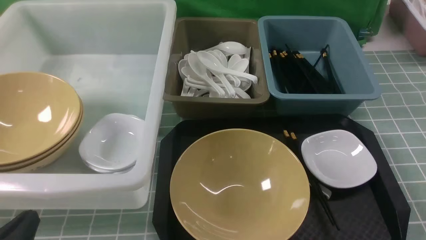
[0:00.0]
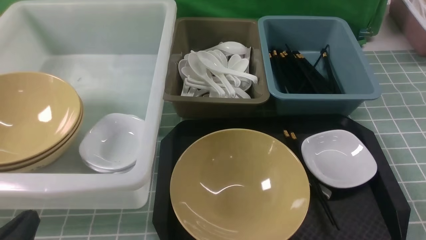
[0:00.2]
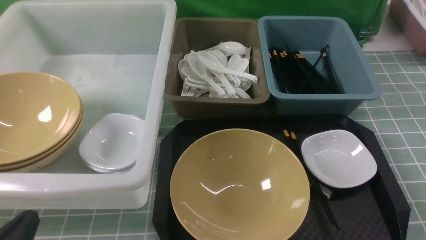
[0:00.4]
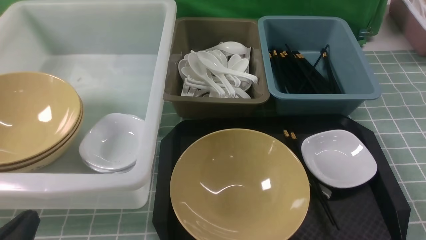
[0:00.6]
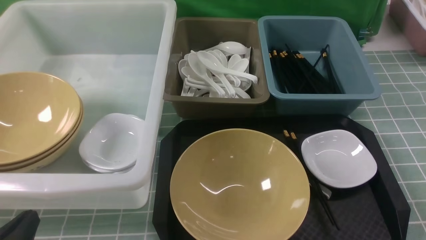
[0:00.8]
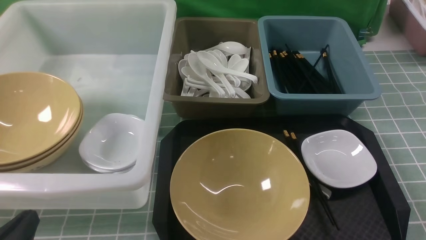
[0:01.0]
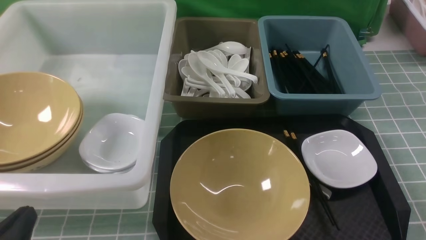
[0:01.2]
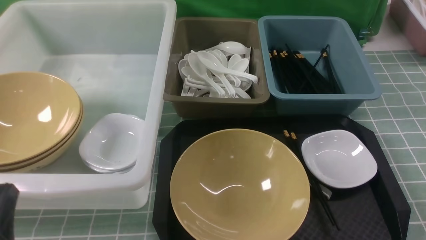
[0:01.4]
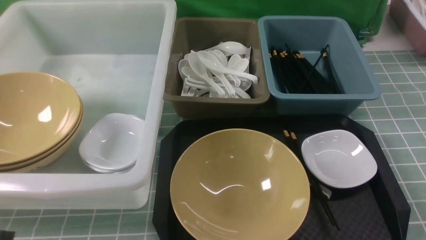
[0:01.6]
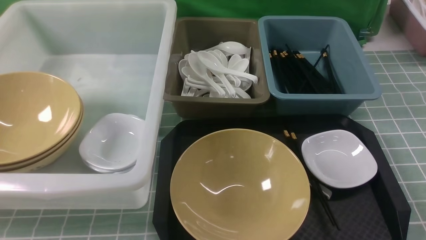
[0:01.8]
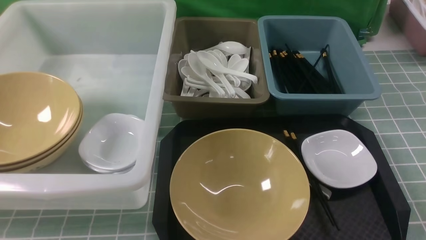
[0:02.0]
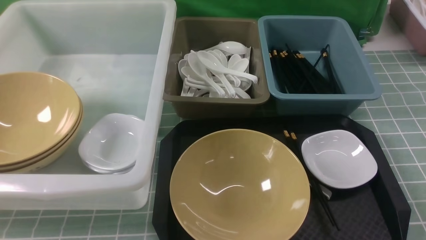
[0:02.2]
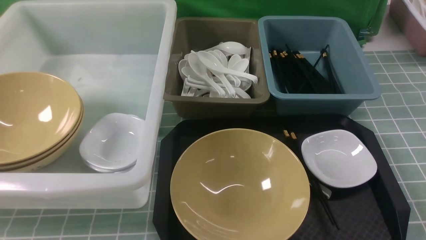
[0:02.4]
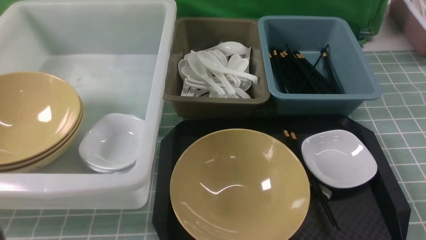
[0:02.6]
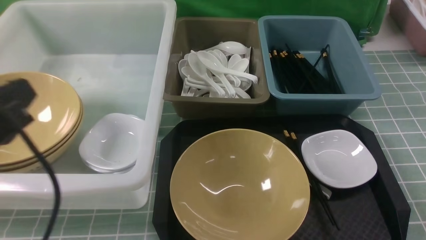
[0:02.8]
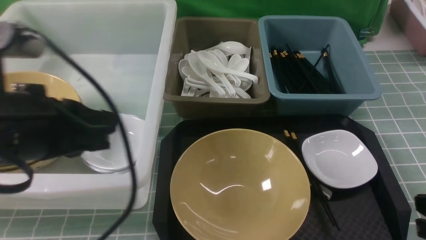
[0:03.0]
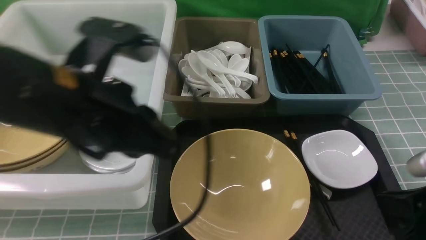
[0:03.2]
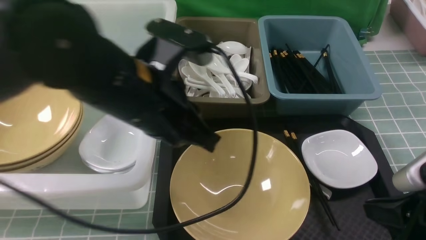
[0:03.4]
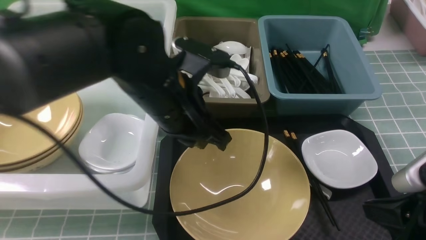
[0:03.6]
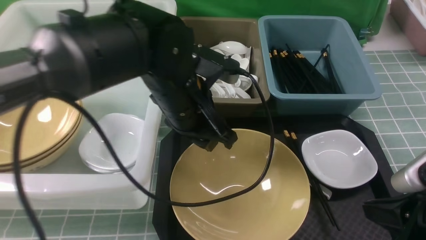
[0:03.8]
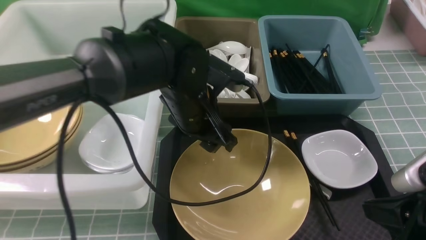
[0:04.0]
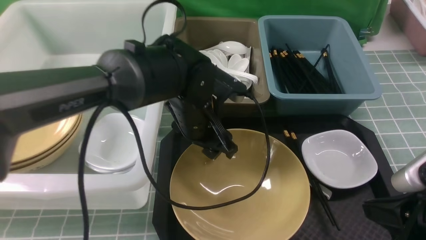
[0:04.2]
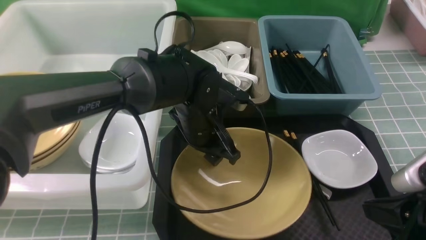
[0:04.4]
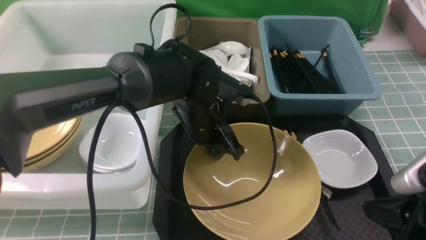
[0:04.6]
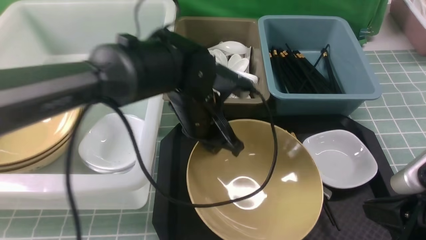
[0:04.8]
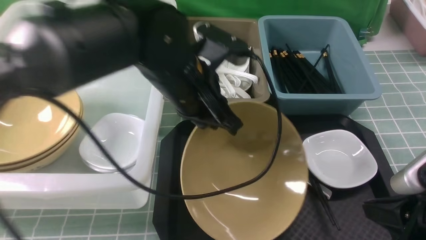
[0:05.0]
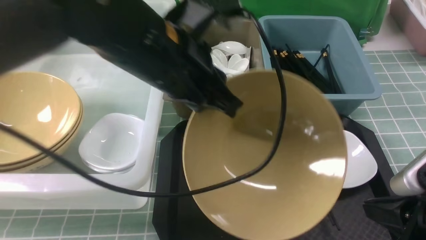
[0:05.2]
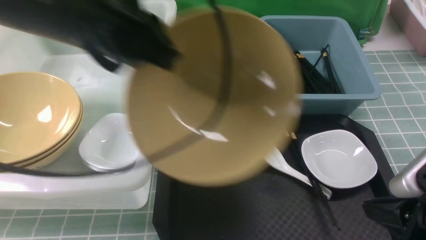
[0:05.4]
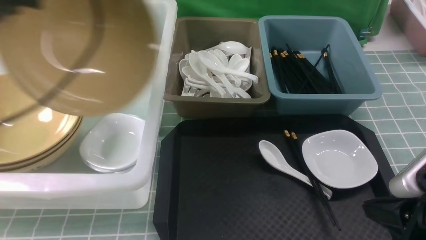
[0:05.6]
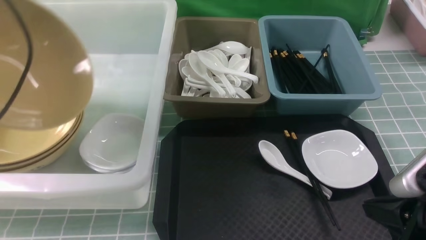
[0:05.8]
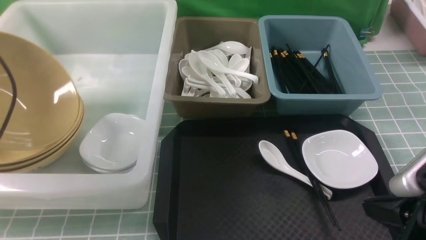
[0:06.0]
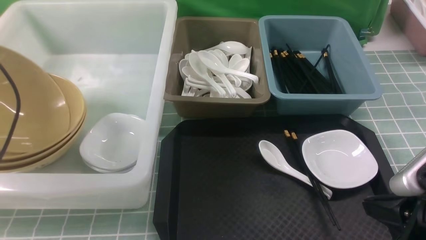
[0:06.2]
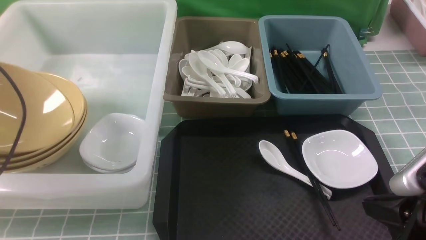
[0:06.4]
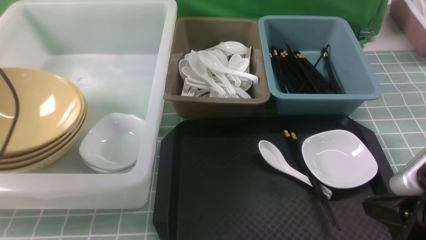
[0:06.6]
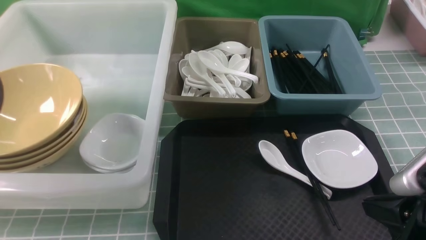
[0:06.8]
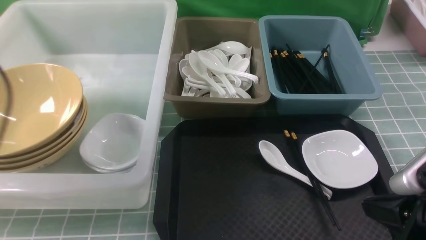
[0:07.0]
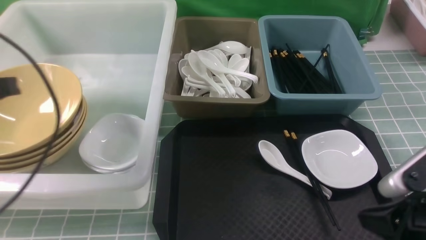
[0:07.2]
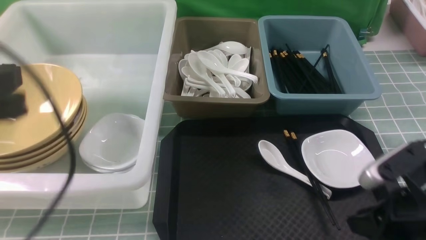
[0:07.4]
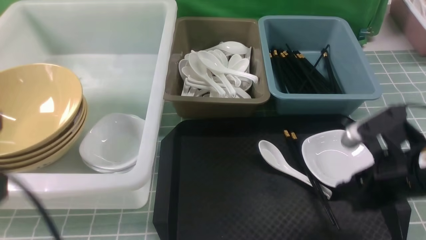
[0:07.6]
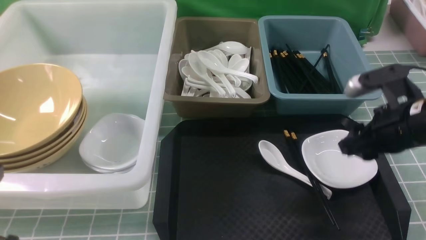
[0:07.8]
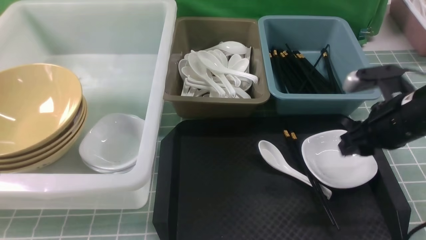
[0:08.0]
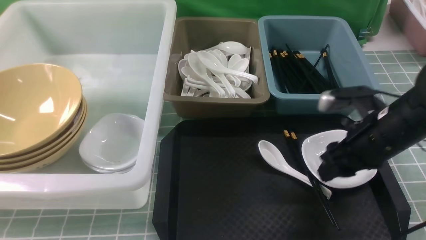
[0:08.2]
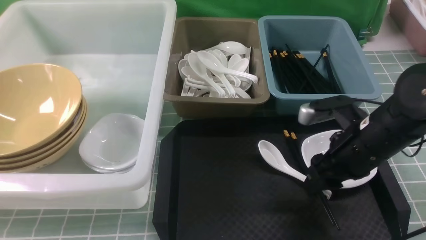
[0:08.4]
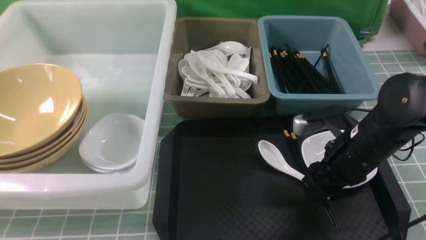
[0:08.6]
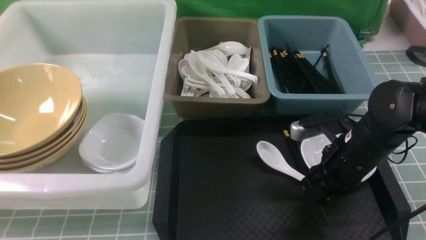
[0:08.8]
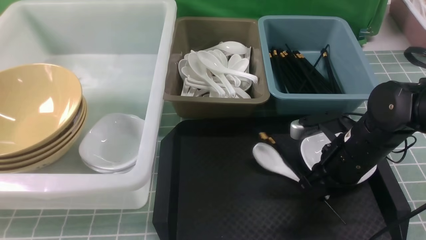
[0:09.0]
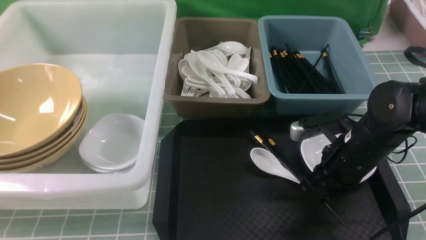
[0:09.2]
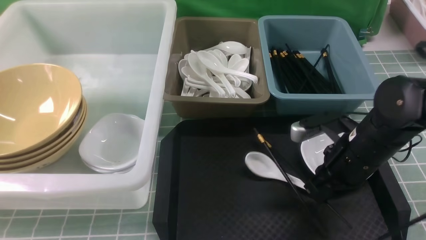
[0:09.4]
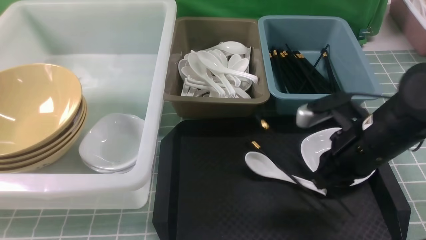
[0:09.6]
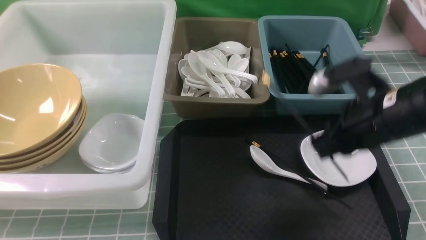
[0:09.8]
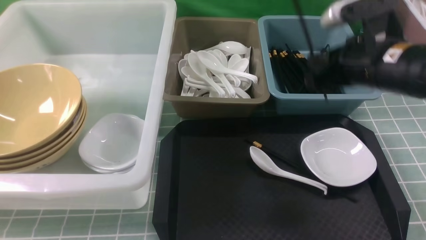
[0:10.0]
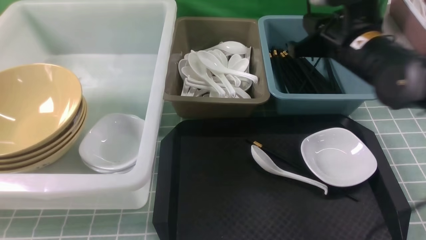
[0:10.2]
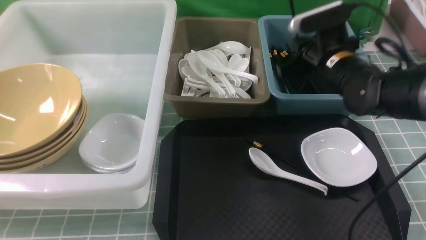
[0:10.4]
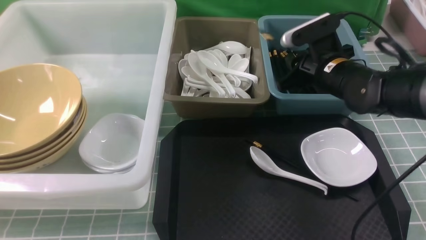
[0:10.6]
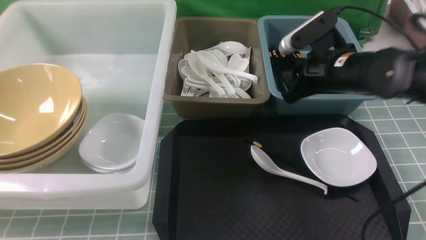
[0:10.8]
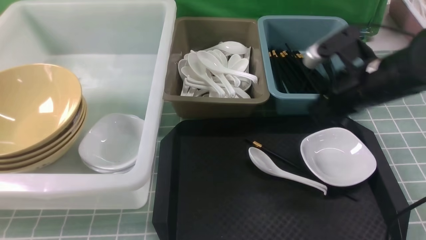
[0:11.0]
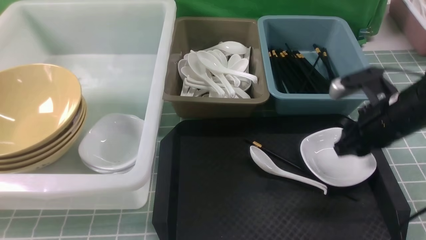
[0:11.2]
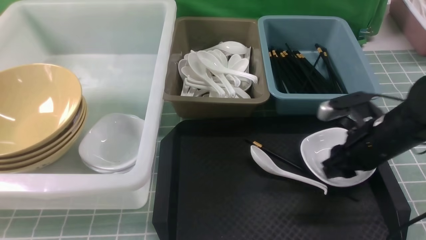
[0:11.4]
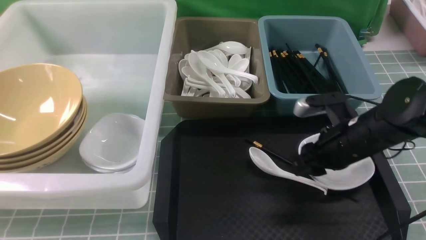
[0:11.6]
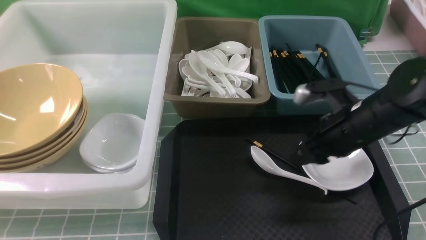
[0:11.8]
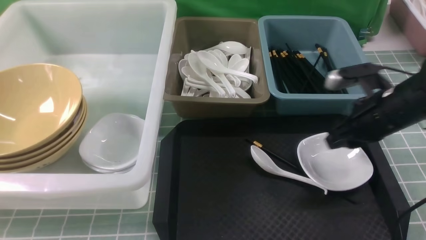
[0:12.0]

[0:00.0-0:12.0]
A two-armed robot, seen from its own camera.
Task of the whole recording: on blue table put chopsticks spoon bowls plates into blue grey white boxes.
Step, 0:00.0 to 0:04.8: use the left arm to grab the yellow noodle bowl on the left.
Step, 0:05.2 to 0:06.8: use the left arm to put the noodle bowl into the large storage box on the left.
Step, 0:07.0 to 0:09.6: use the right arm to grab a chopstick.
Step, 0:09.8 to 0:10.8: use the right arm to put a chopstick into the small storage box on the right.
0:00.0 to 0:01.6: The left gripper heads upward, covering roughly 5 cm.
0:01.6 to 0:03.0: The right gripper goes roughly 5 cm forward, and reaches some 10 cm upward, then returns. Meanwhile the left gripper shifts roughly 20 cm upward, forward and to the right.
0:03.0 to 0:04.4: The left gripper goes about 25 cm forward, to the right and downward, and opens up.
0:04.4 to 0:06.0: The left gripper moves to the left, some 35 cm, and closes its fingers.
0:06.0 to 0:07.6: The left gripper is displaced backward and to the right by some 20 cm, and opens, then closes again; the right gripper travels forward by roughly 10 cm, and opens up.
0:07.6 to 0:09.0: The left gripper heads downward, covering approximately 5 cm. Meanwhile the right gripper travels forward and downward by about 10 cm, and closes up.
0:09.0 to 0:10.4: The right gripper shifts roughly 15 cm forward and upward.
0:10.4 to 0:12.0: The right gripper travels to the right and backward by roughly 10 cm, and opens up.

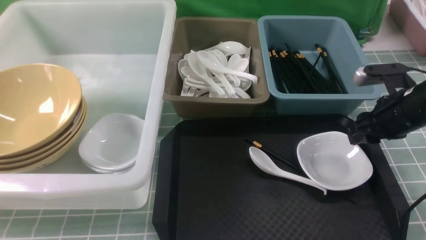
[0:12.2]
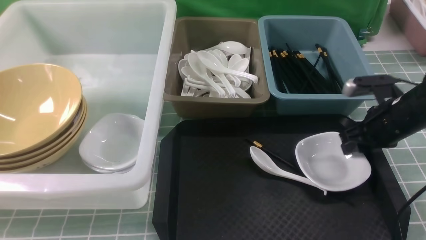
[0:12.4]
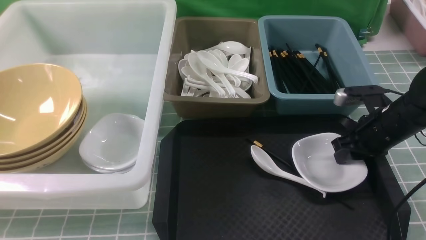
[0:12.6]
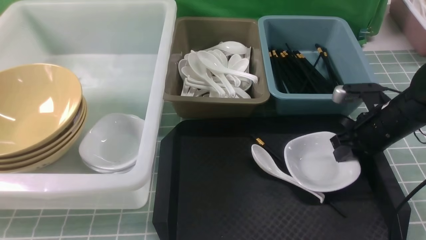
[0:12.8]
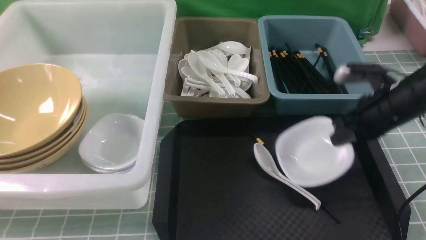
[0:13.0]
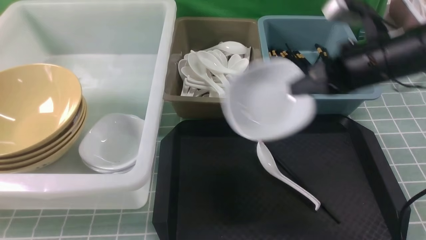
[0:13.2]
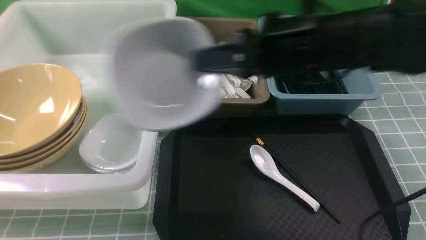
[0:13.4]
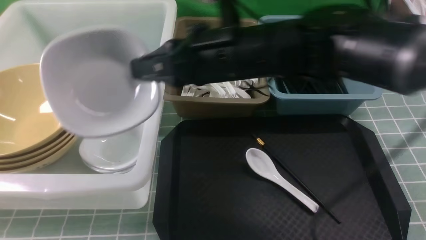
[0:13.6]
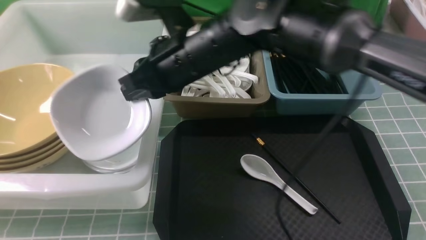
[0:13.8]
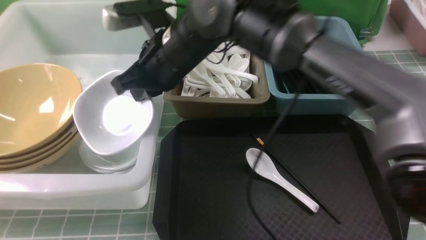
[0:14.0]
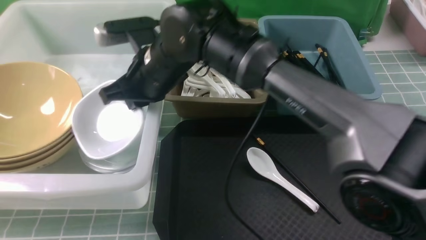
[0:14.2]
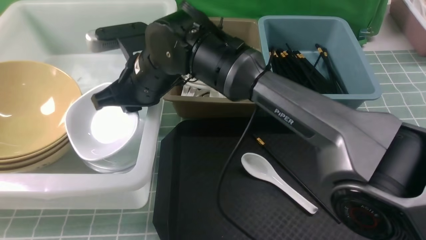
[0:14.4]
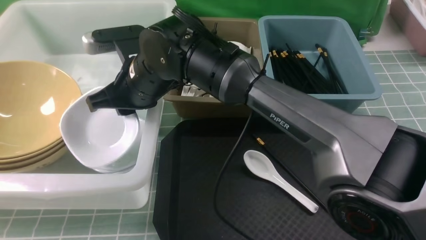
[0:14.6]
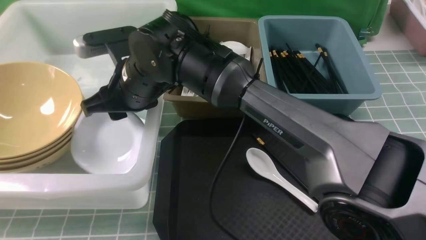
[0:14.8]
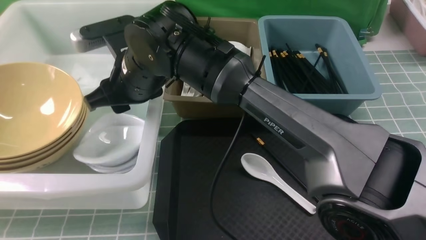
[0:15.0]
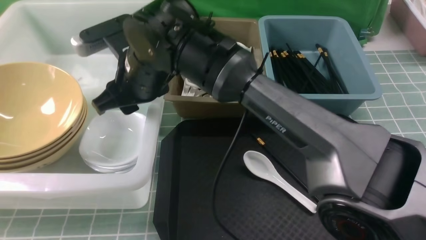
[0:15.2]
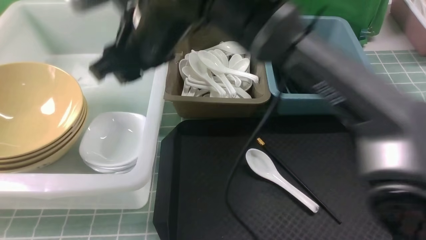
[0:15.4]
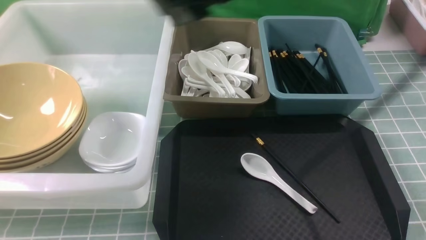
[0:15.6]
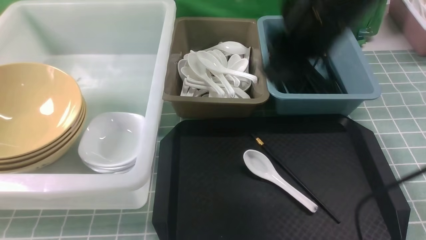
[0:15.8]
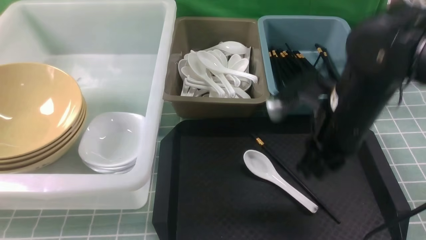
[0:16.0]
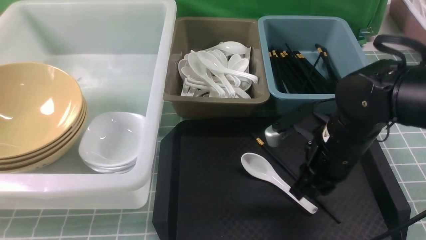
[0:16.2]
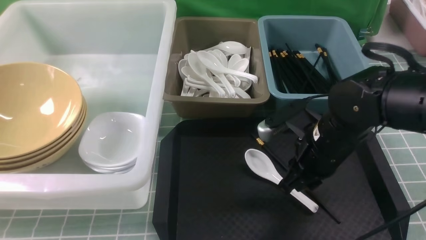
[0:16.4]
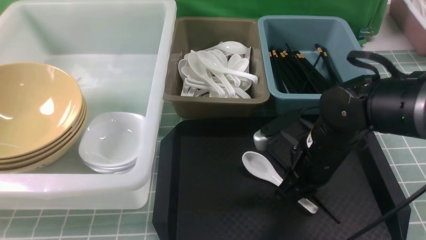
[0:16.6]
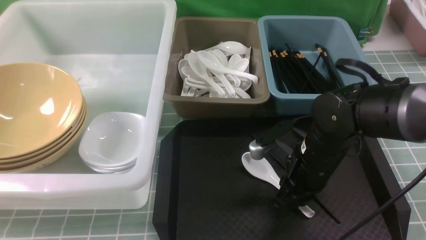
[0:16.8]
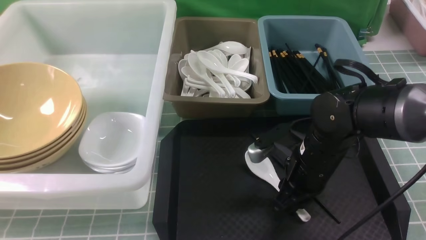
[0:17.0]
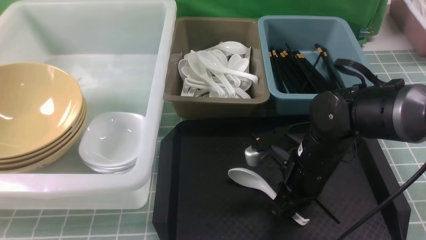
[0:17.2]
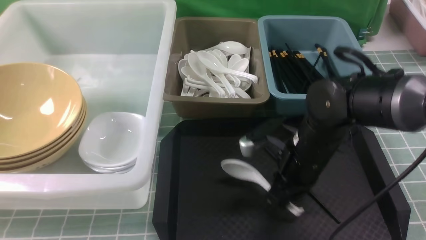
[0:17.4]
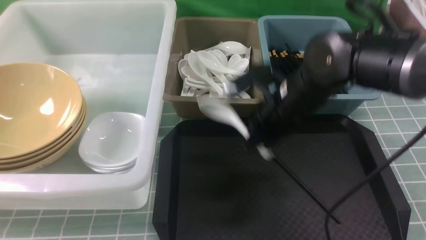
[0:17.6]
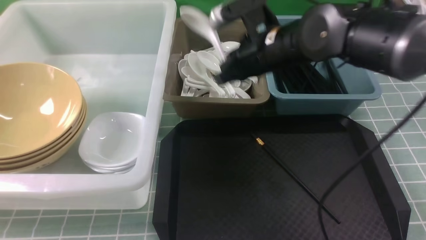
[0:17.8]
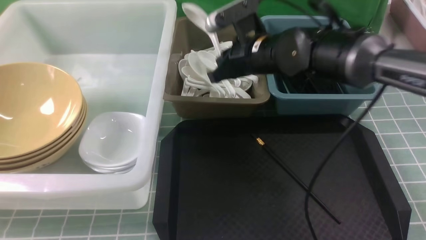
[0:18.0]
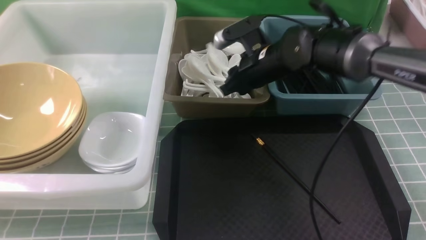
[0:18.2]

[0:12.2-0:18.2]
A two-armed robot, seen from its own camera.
Task of the whole recording: on blue table put chopsticks spoon bowls plates into blue grey white boxes.
Step, 0:13.2 to 0:14.8: use the right arm to put the plate into the large storage box on the left.
Step, 0:15.0 to 0:17.2: use the right arm to grab the soup spoon in the middle.
0:12.2 to 0:13.8: The right gripper shifts approximately 30 cm to the left, and closes up.
0:13.8 to 0:15.2: The right gripper opens its fingers.
0:15.2 to 0:16.6: The right gripper goes approximately 25 cm to the right and downward, and closes its fingers.
0:16.6 to 0:18.2: The right gripper heads forward and upward, covering some 15 cm, and closes and opens again.
